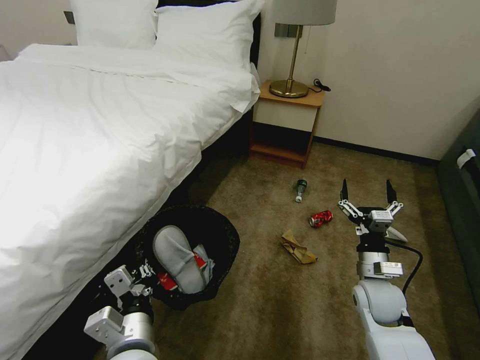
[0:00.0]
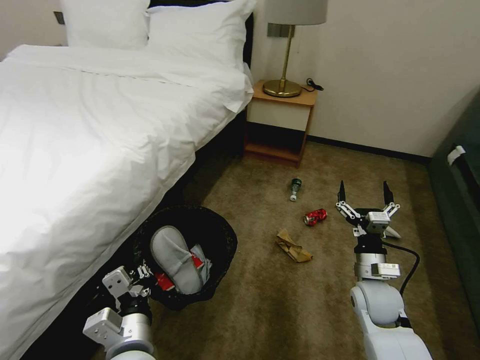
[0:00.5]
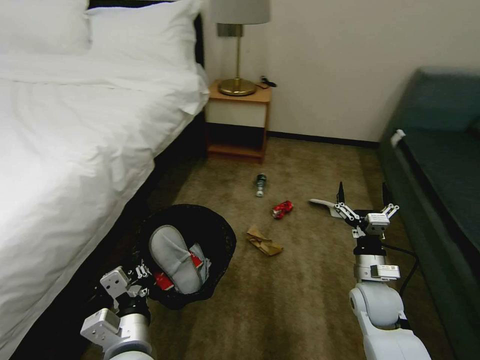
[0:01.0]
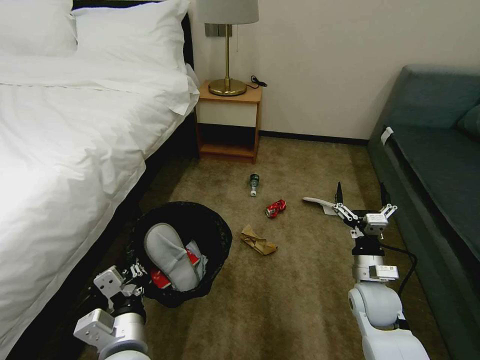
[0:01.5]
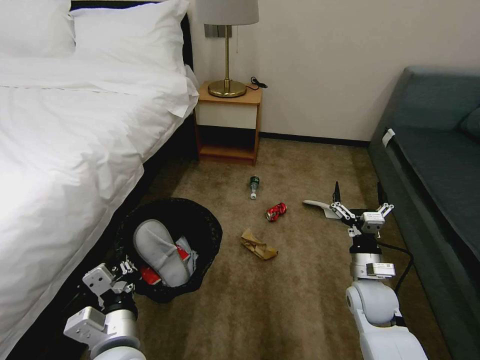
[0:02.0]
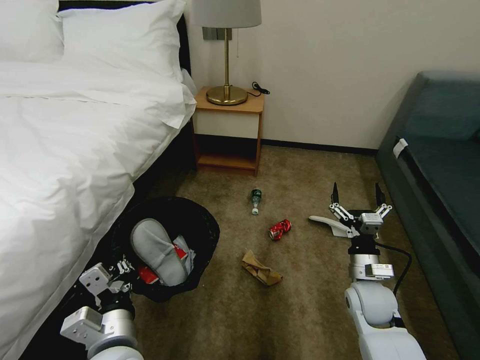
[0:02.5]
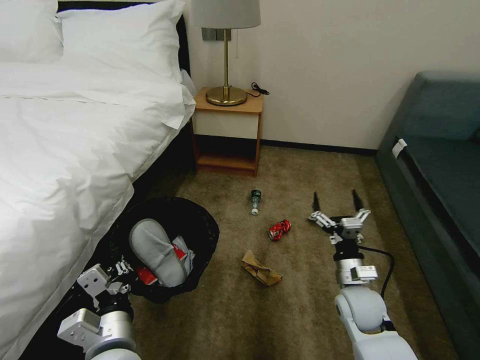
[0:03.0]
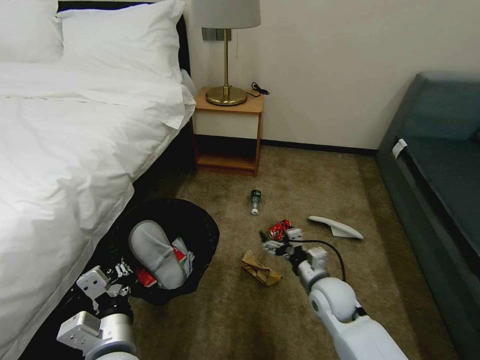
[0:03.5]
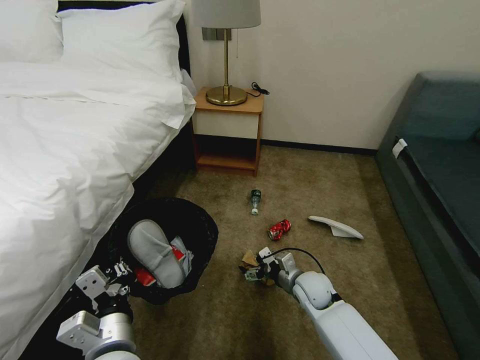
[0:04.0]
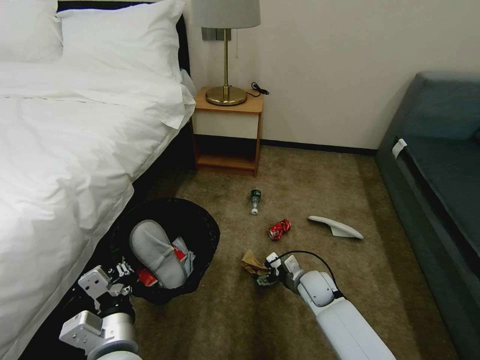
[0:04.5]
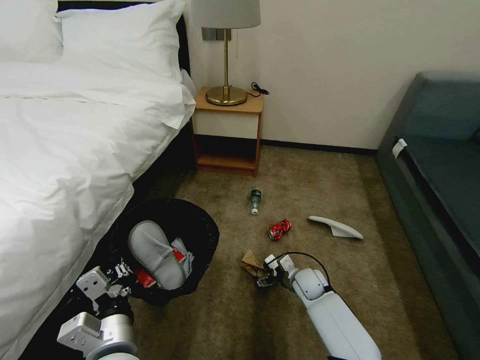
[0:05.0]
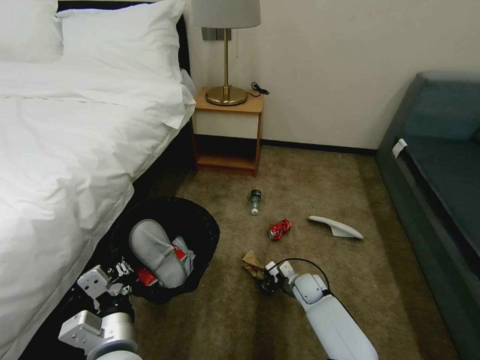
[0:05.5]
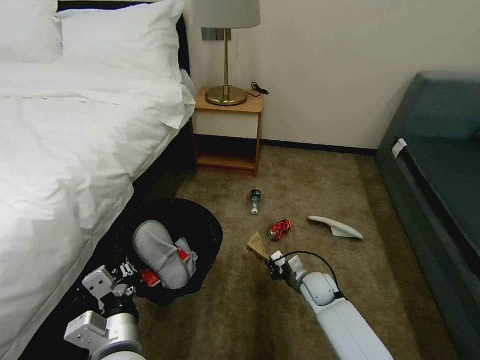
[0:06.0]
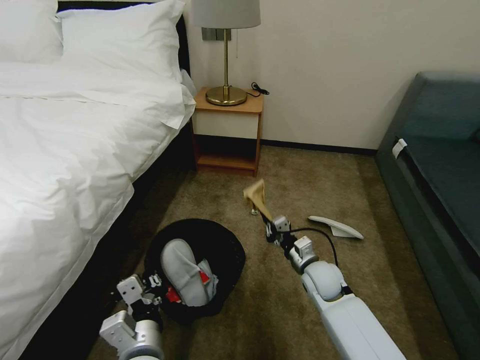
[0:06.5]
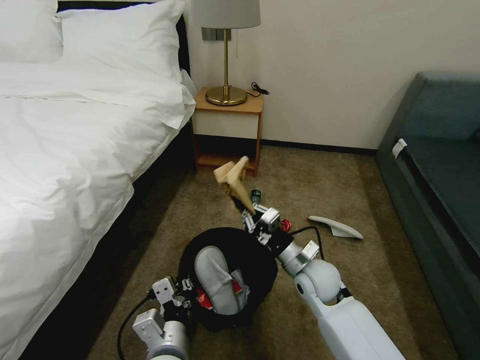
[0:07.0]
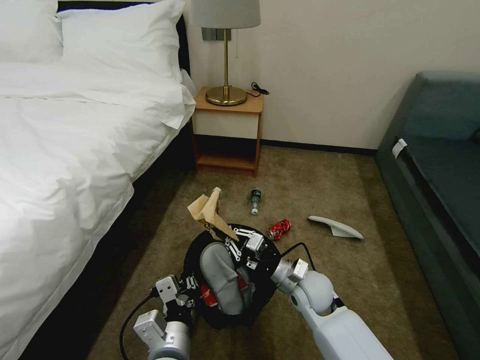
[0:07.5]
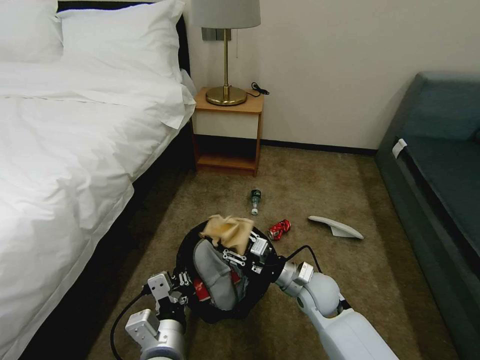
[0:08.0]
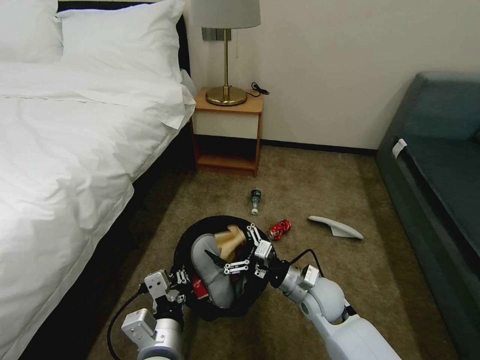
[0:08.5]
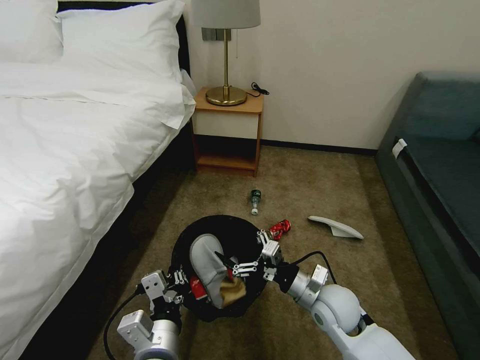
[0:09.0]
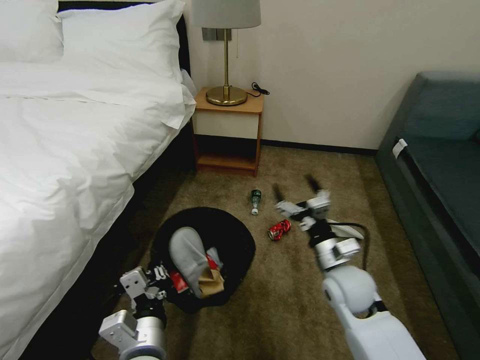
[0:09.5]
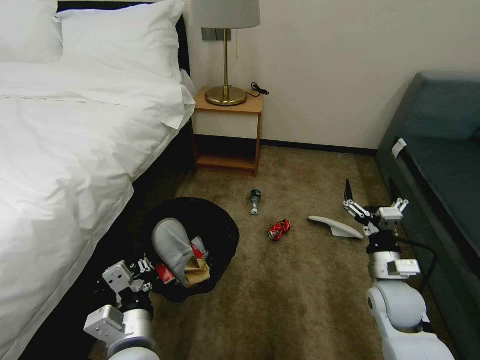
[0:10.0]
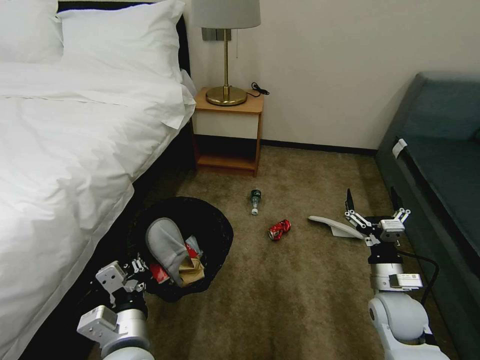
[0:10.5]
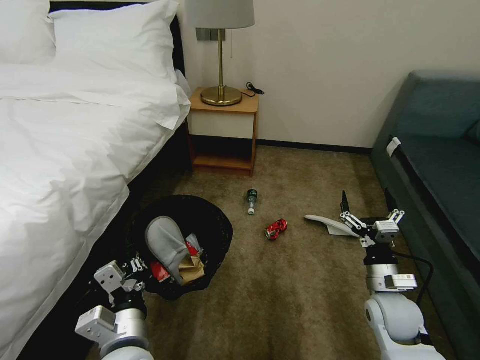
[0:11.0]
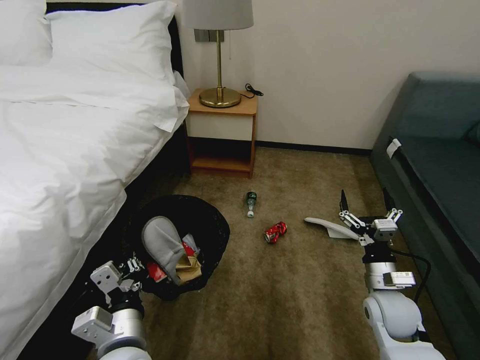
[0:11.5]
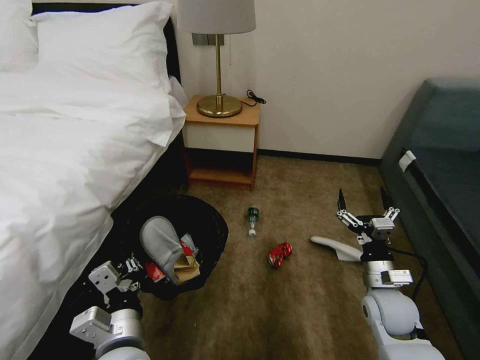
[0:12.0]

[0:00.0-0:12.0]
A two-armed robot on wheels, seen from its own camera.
Task of the whole recording: Pick up the trash bin, then pick up the garbage on the floor and place it into the trash bin.
0:02.0 to 0:04.0: The right gripper shifts approximately 10 cm to the left and downward.
0:04.0 to 0:06.0: The right gripper is displaced downward by roughly 5 cm, and closes up.
0:06.0 to 0:08.0: The left gripper travels to the right by roughly 5 cm. Meanwhile the right gripper is displaced upward and backward by about 10 cm, and opens up.
0:08.0 to 0:10.0: The right gripper moves to the right, some 15 cm, and opens its fingers.

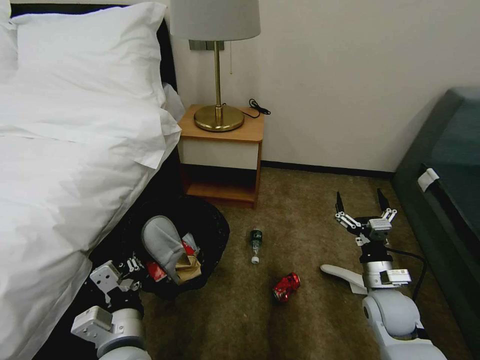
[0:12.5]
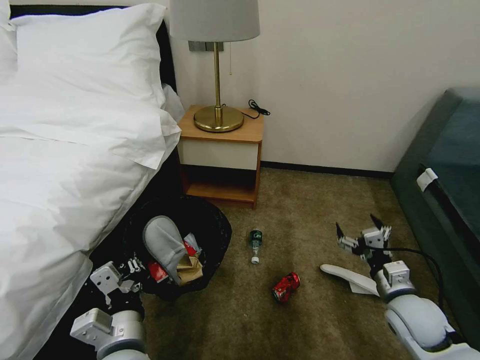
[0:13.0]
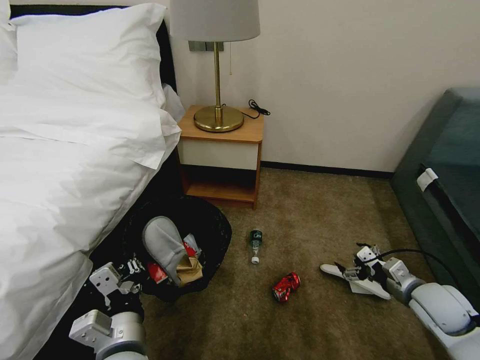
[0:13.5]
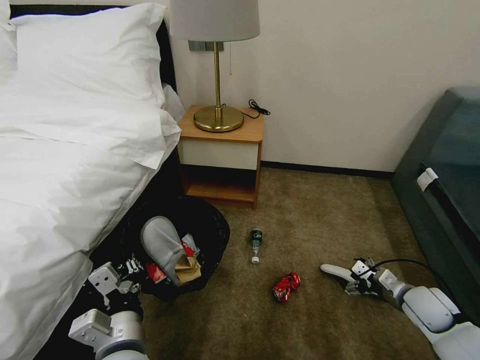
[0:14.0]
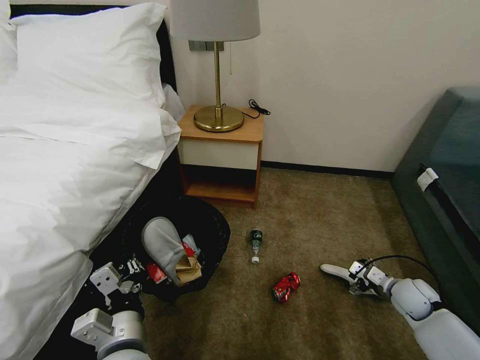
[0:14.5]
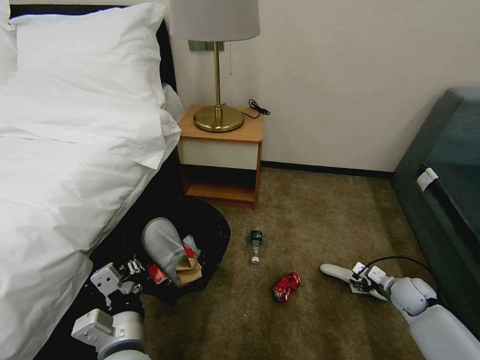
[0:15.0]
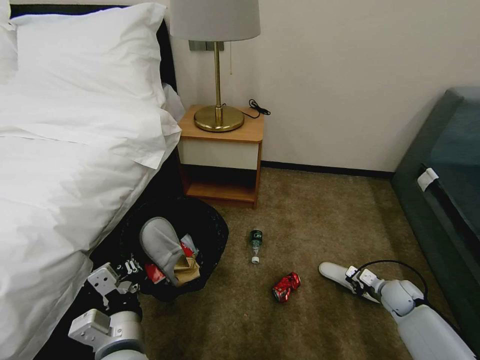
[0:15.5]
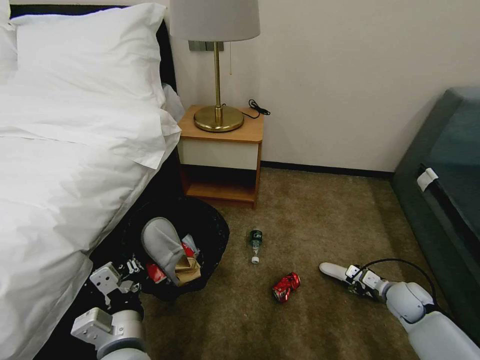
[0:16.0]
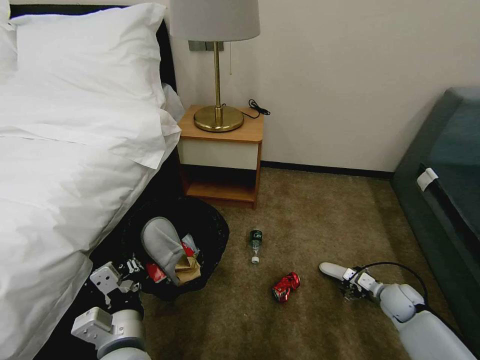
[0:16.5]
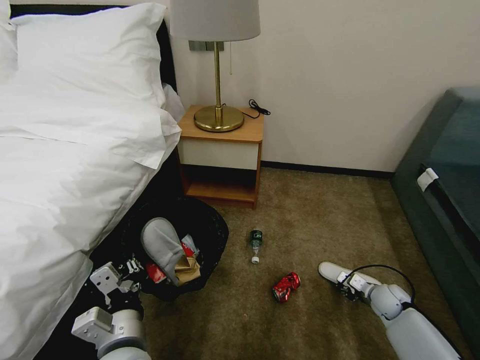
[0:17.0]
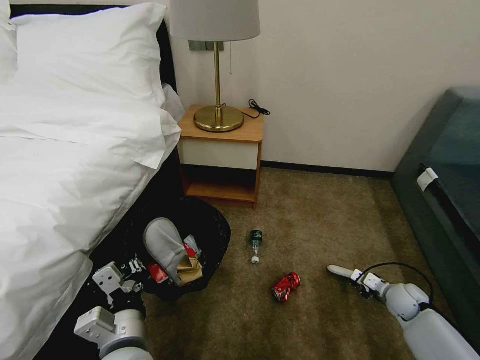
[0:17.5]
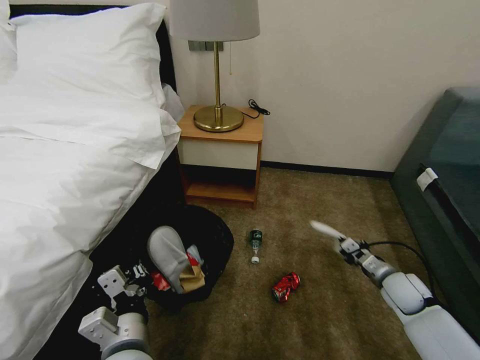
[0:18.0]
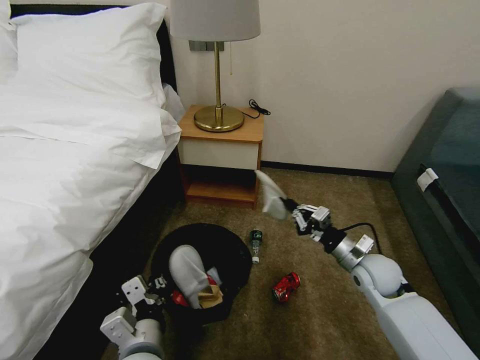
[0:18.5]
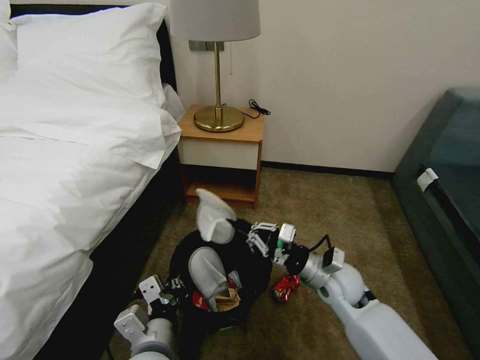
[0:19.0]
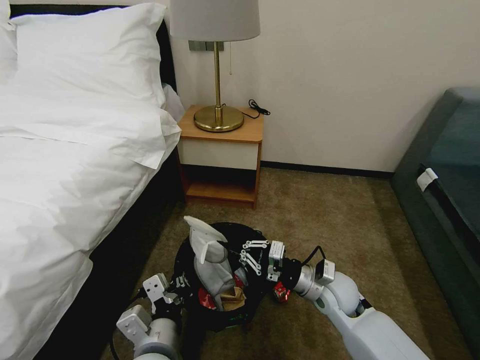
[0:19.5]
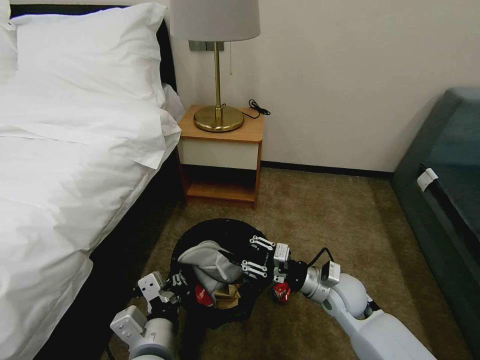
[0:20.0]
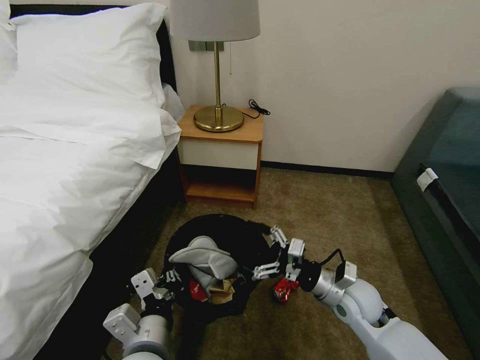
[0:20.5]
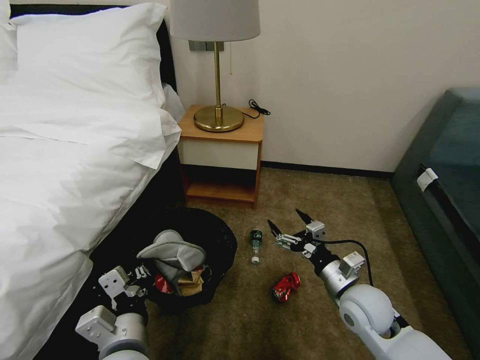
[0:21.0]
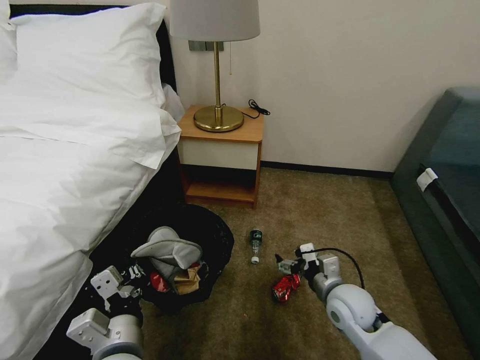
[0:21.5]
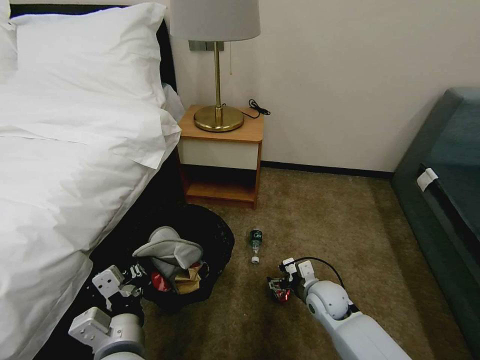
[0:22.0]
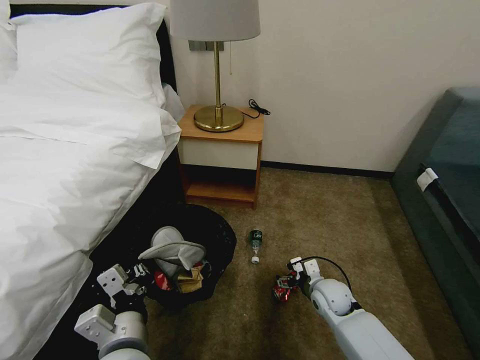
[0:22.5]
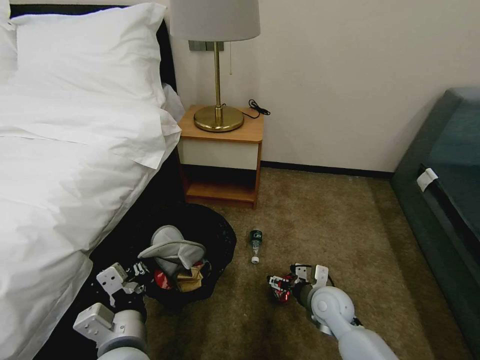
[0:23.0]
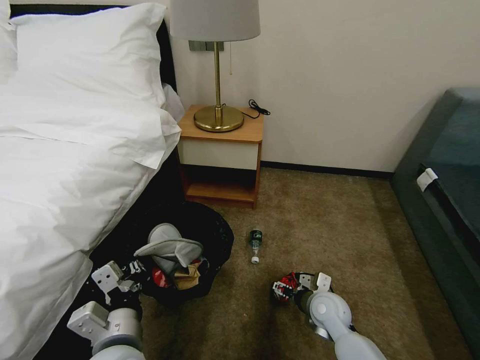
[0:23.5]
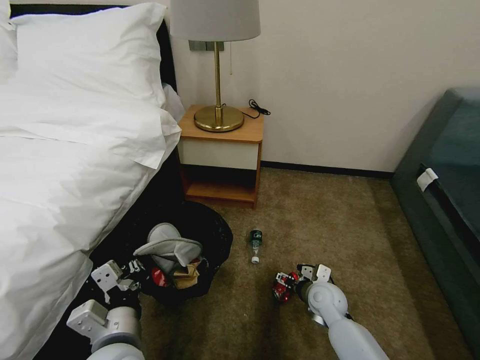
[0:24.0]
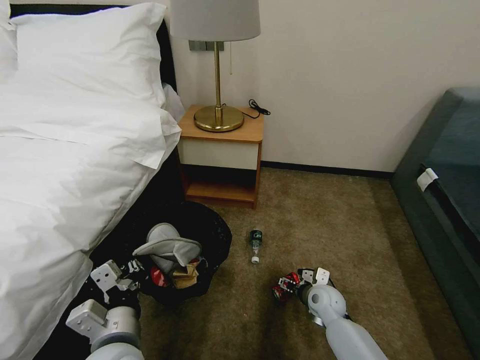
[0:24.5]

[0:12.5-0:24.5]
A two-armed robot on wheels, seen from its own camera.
Task of the whole recording: Pick up the trash bin, then pick up the garbage on the floor and place it into the trash bin.
0:12.5 to 0:14.5: The right gripper shifts roughly 15 cm to the right and downward.
0:14.5 to 0:16.5: The right gripper closes, then opens again.
0:16.5 to 0:18.5: The right gripper travels upward and to the left by about 20 cm, and closes up.
0:18.5 to 0:20.5: The right gripper goes roughly 10 cm to the left and backward, and opens.
0:20.5 to 0:22.5: The right gripper heads downward, covering some 10 cm.

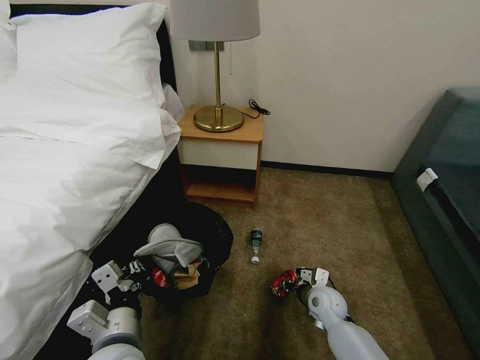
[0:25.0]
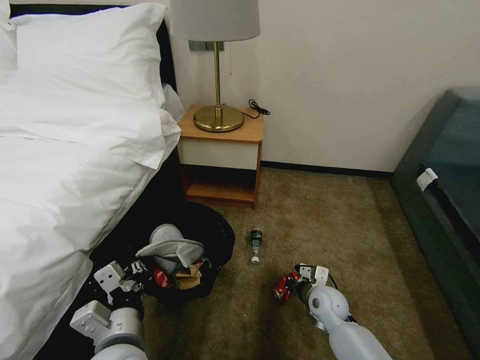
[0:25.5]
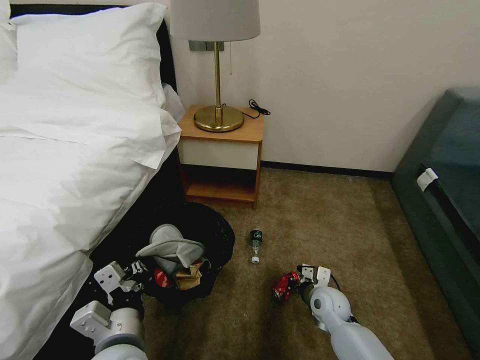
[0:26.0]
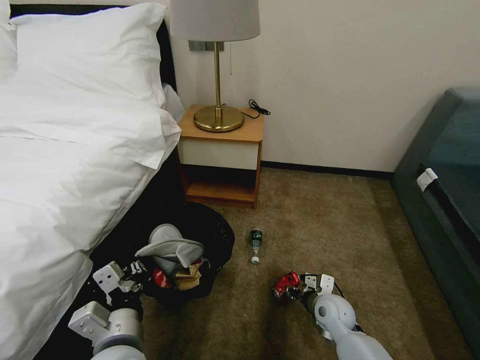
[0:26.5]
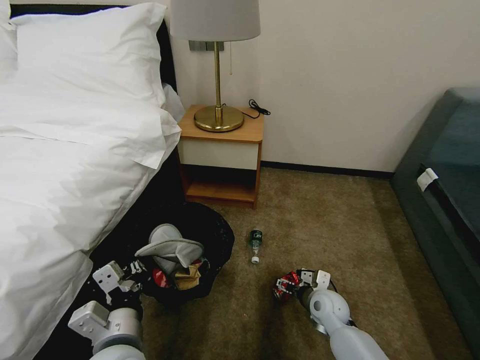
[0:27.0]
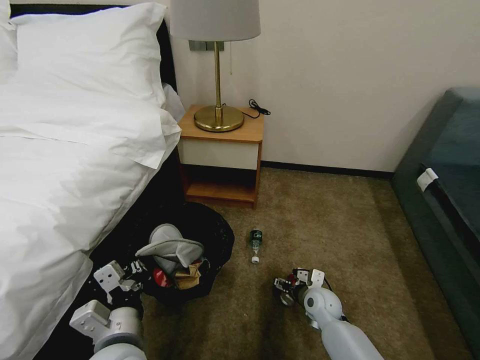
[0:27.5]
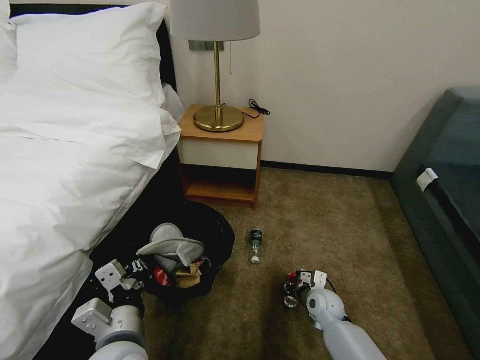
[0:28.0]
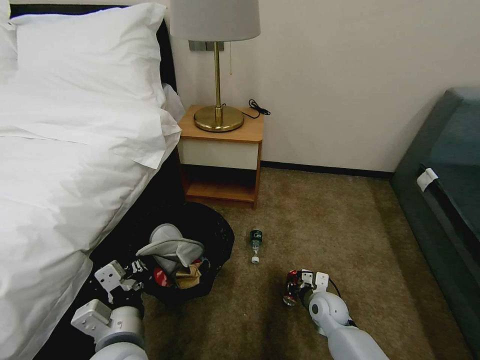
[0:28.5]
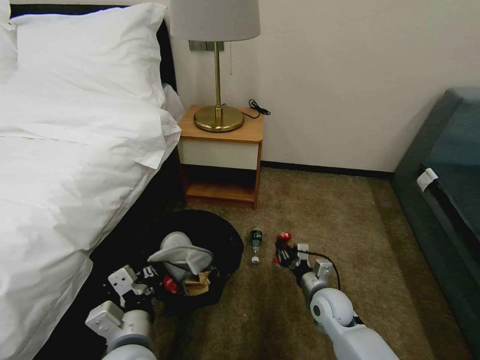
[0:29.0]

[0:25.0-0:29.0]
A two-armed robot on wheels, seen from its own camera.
Task of the whole recording: Pick up the trash bin, then pick up the garbage on the floor and place it into the trash bin.
0:25.0 to 0:27.0: The right gripper opens up.
0:27.0 to 0:29.0: The right gripper closes up.
